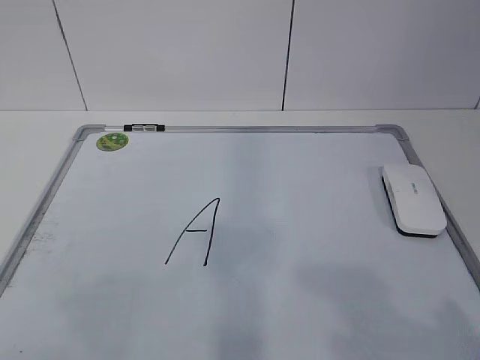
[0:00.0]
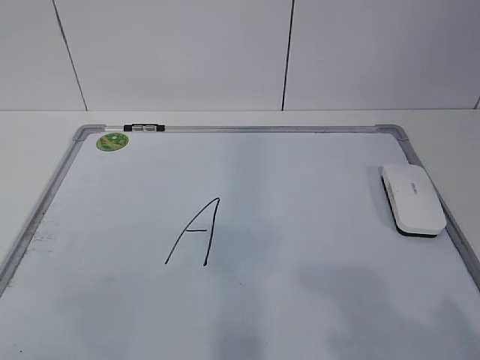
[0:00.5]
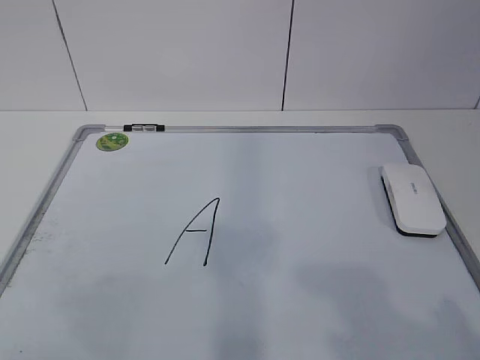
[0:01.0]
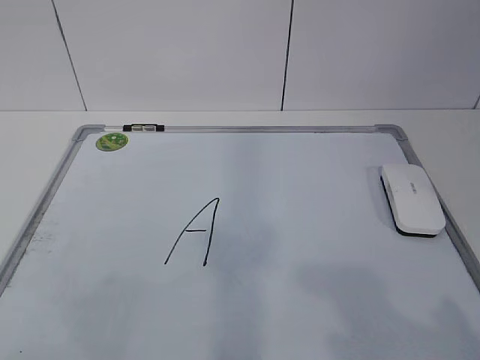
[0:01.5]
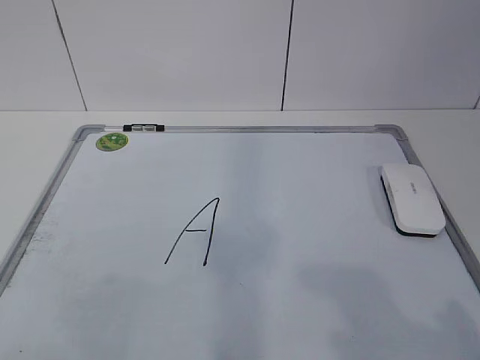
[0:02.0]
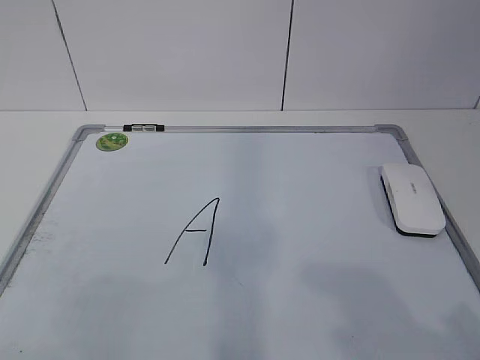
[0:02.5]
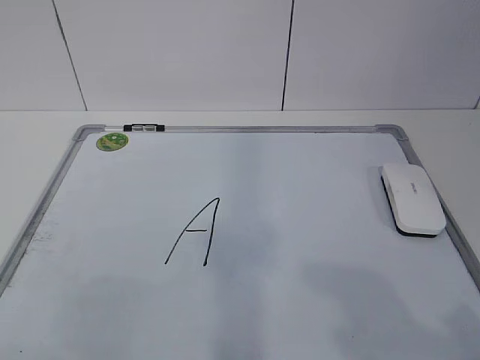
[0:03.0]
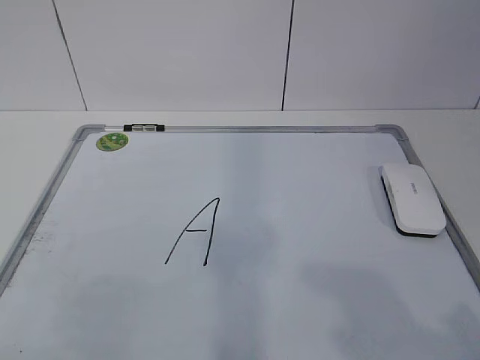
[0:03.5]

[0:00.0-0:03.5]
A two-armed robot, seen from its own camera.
Task of the whole recording: pick up the eraser on the blackboard and erase the letter "a".
0:02.0 to 0:03.5: The two grippers keep their place.

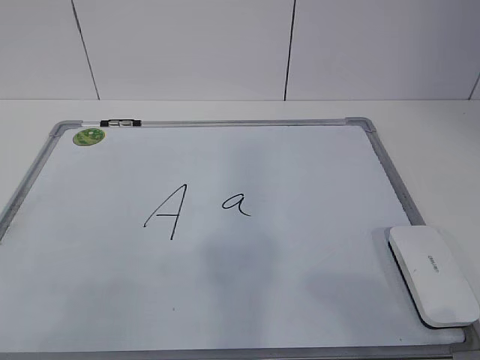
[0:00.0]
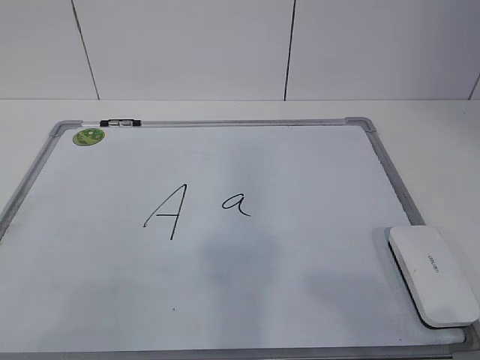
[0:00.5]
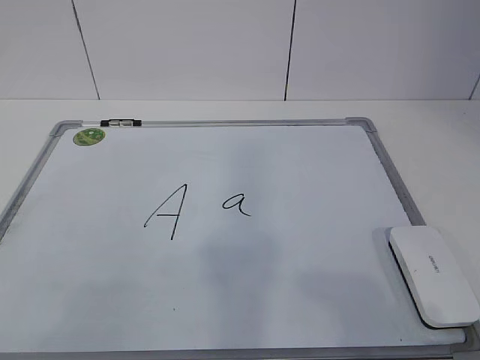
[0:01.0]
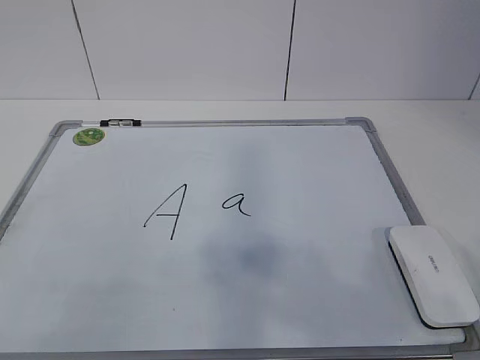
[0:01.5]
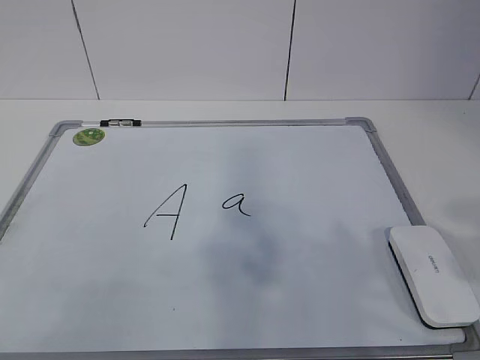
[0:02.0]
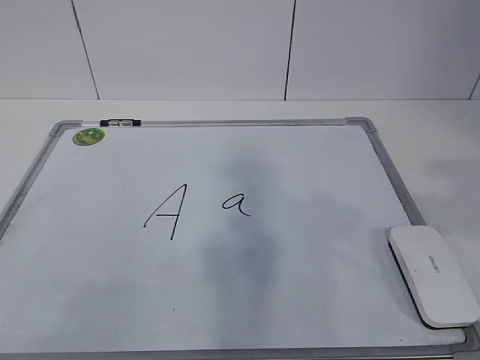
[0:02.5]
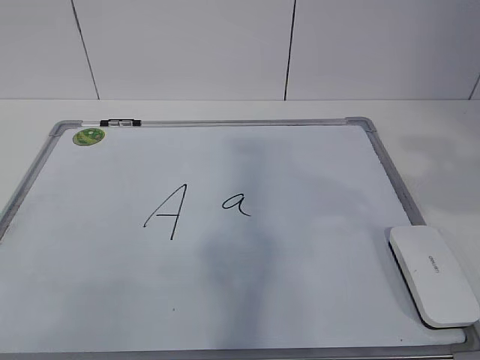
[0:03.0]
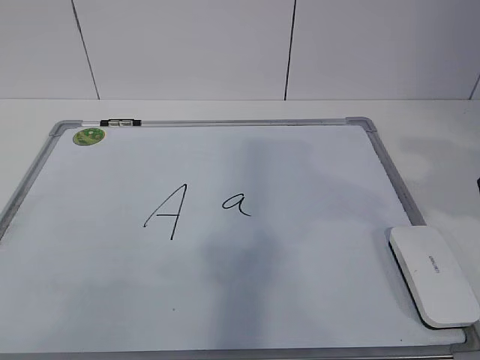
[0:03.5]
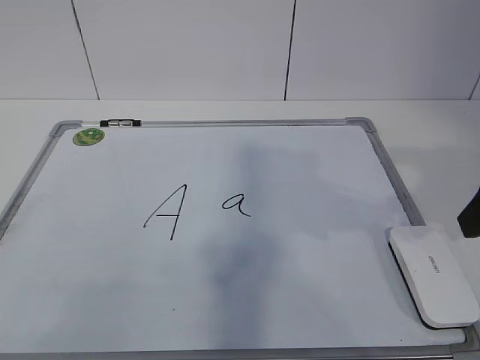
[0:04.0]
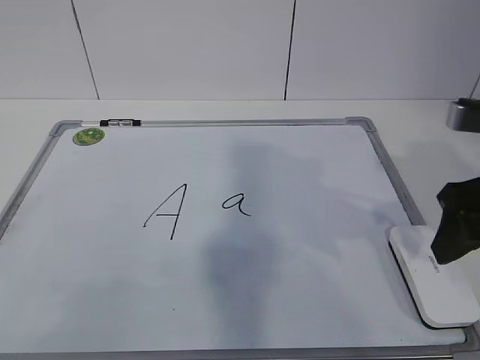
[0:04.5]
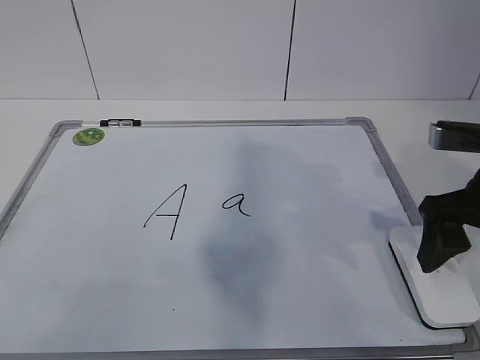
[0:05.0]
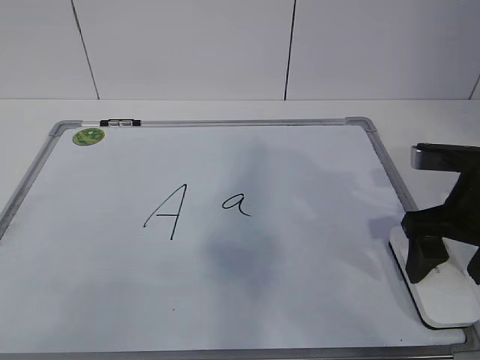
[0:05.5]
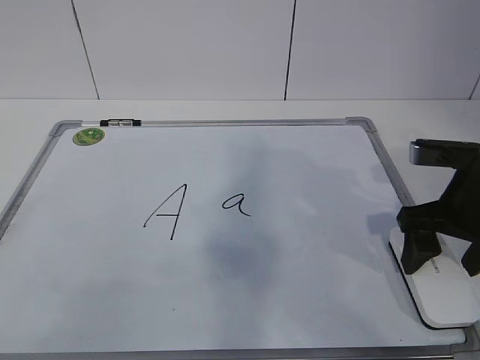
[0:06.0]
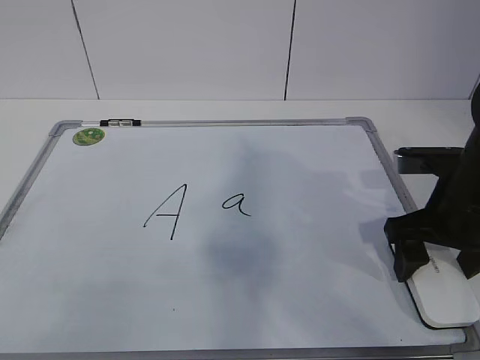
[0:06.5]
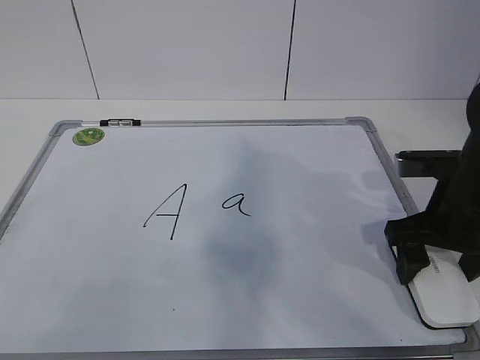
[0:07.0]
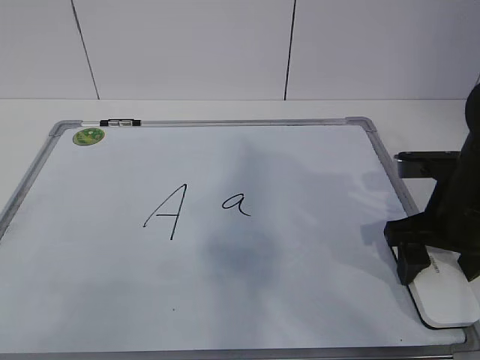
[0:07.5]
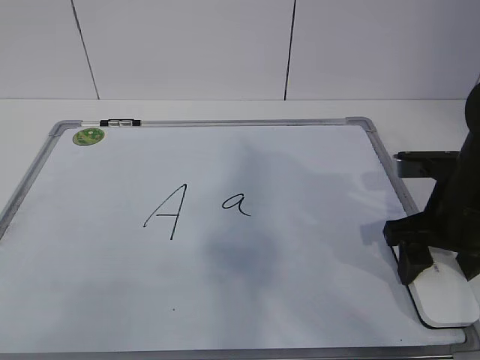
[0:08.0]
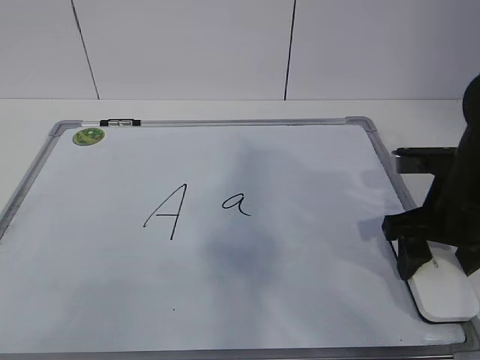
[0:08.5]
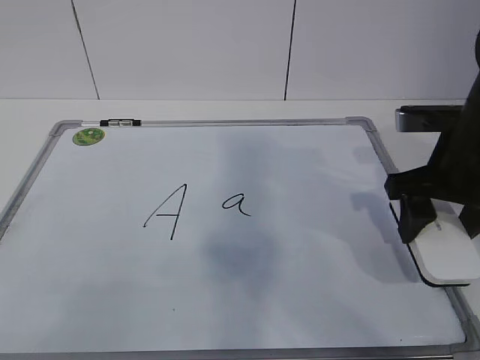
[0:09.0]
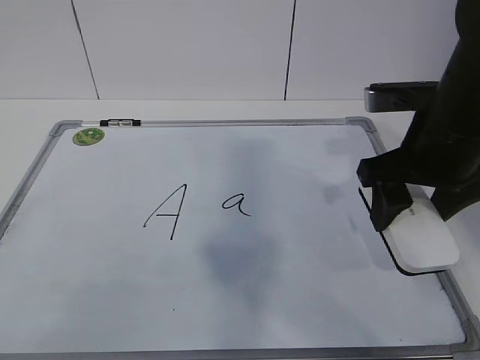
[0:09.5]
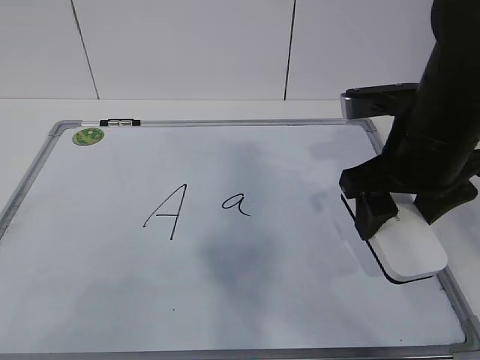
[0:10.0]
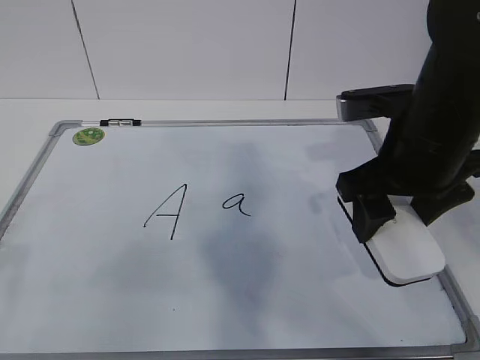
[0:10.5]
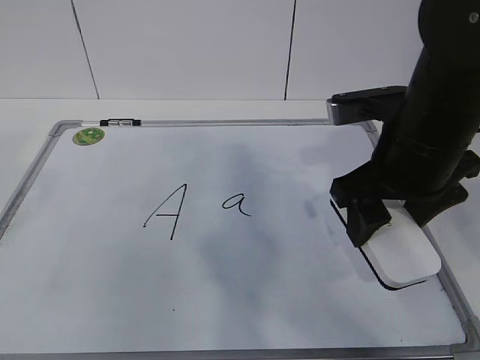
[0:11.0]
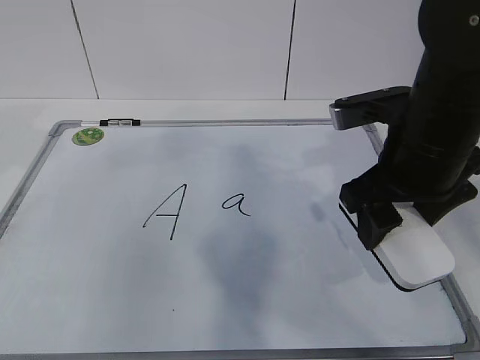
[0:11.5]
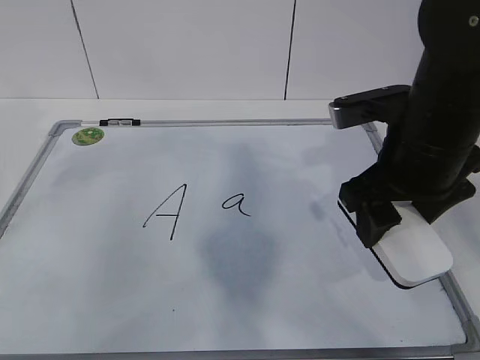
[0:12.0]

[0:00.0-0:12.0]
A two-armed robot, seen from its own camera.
Task of the whole recording: pick up the eraser on the blackboard and erase the letter "a".
Step, 0:00.0 to 0:07.0: Grab the eraser with your right hand.
Step, 0:07.5 to 0:11.5: Hold the drawing board steady with your left hand.
0:04.0 to 0:06.0: The right gripper travels downward and forward by about 10 cm, and opens.
0:06.0 to 0:08.0: The right gripper closes up.
0:08.0 to 0:10.0: The right gripper travels upward and to the left by about 10 cm.

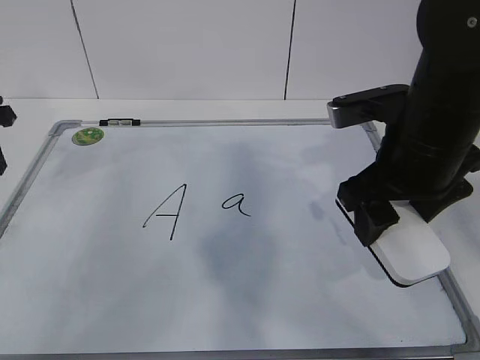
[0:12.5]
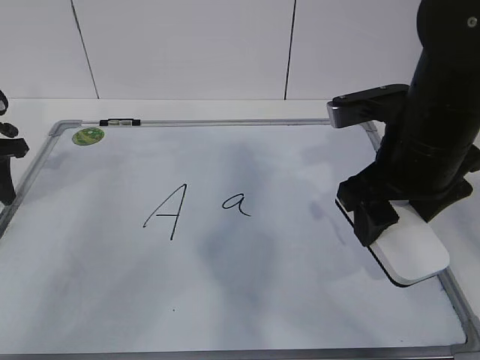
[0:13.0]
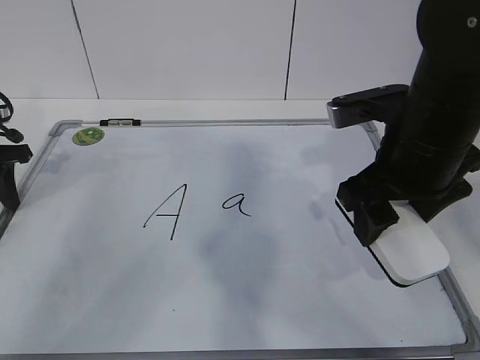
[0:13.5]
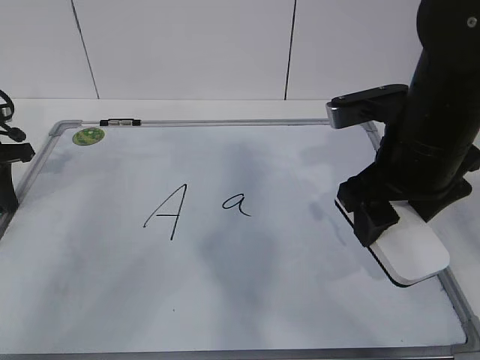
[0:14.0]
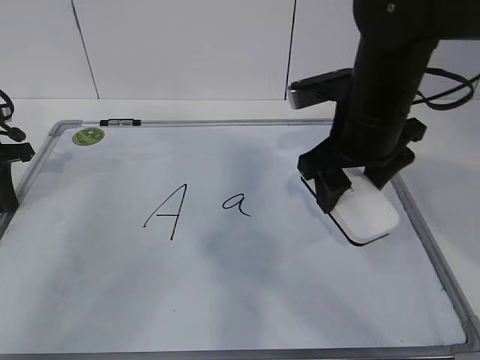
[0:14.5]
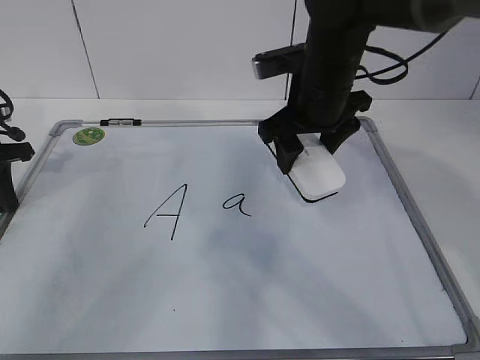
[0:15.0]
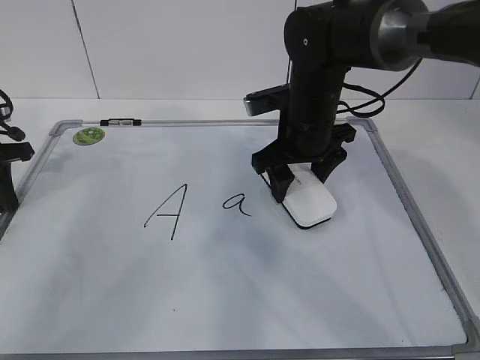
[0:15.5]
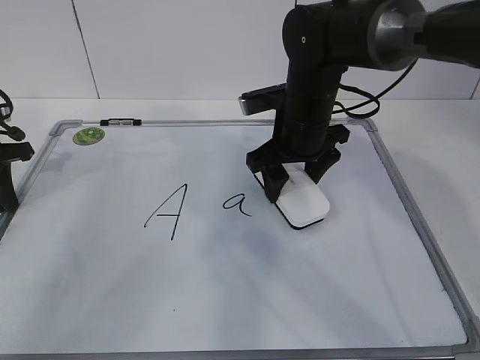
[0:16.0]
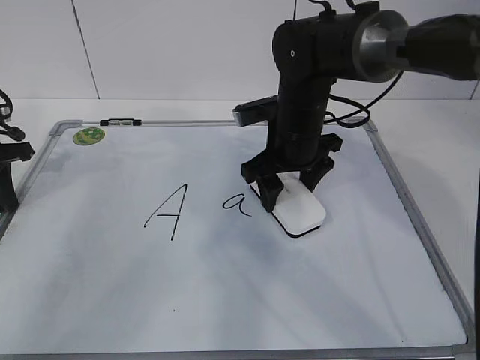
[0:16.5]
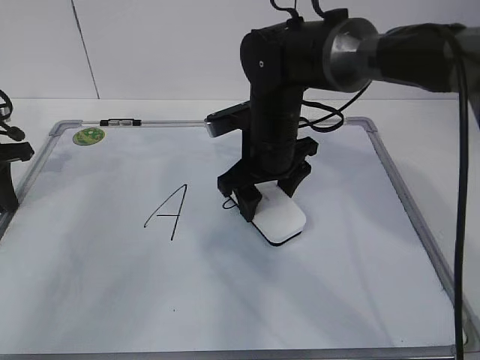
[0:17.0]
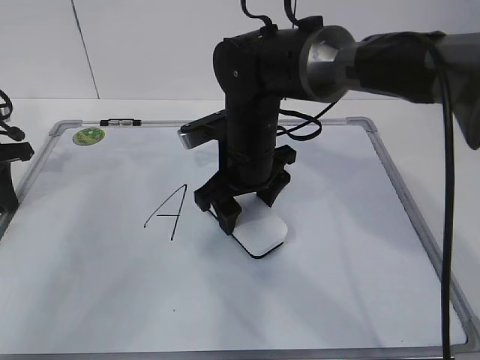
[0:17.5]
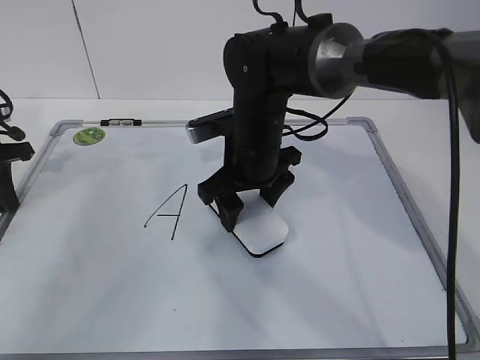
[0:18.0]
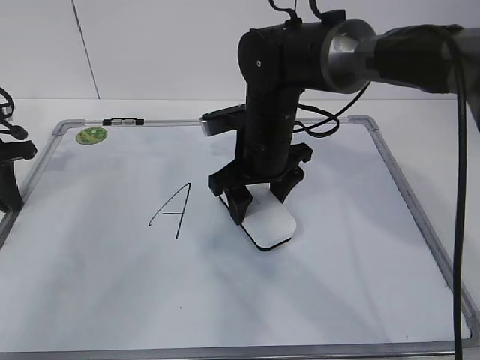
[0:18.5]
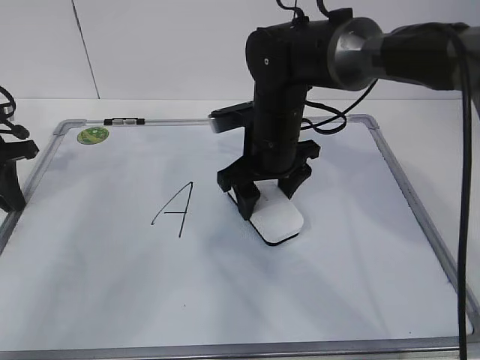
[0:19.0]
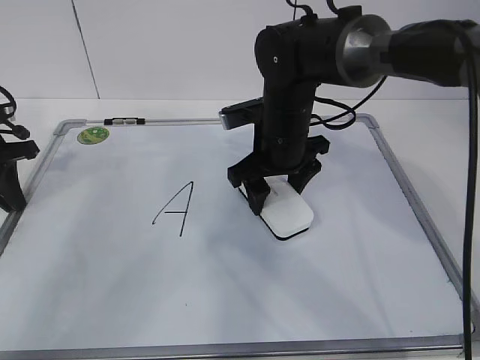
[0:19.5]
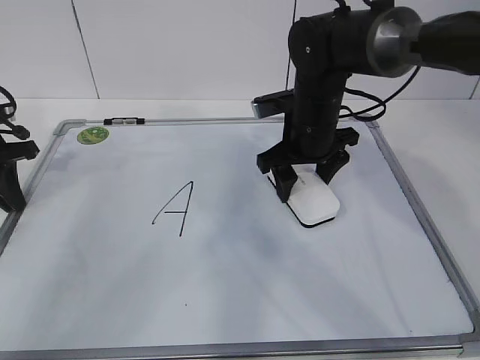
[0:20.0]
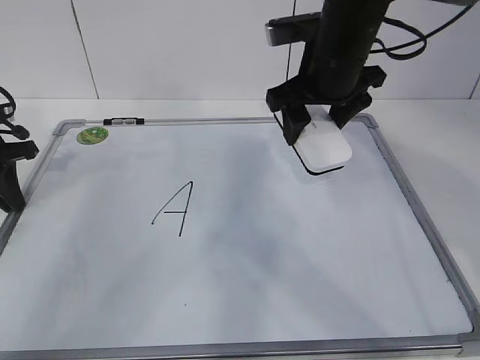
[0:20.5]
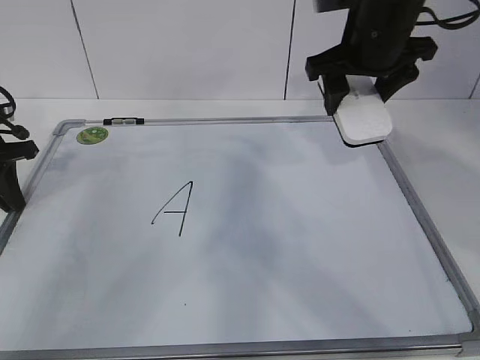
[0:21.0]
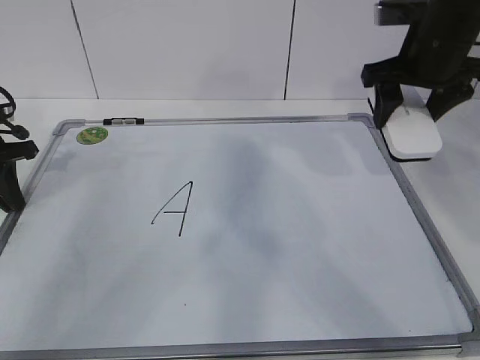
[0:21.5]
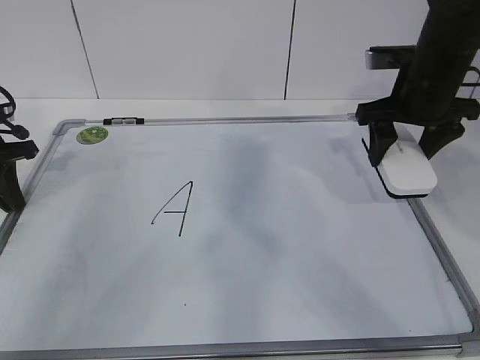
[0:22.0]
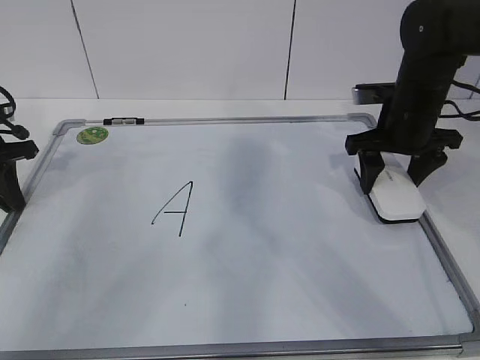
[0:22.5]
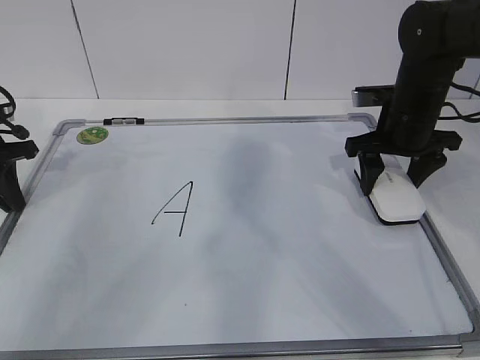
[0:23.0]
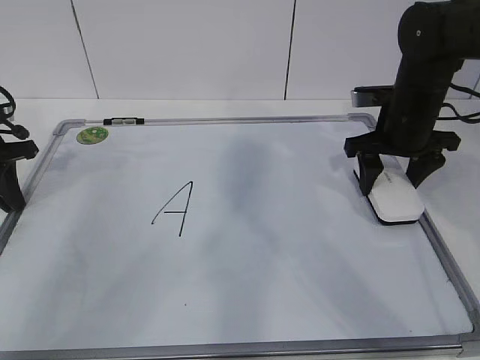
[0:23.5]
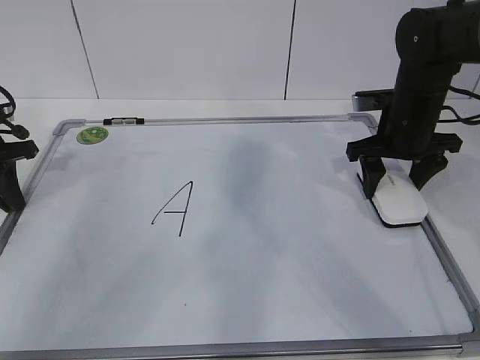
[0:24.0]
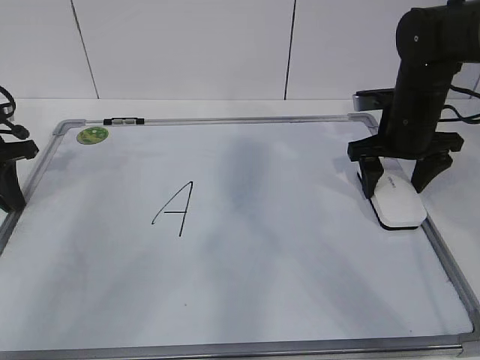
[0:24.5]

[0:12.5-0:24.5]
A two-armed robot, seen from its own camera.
Task of the whole recording: pick up the eraser on the blackboard and erase the letter "a".
Step, 0:12.5 to 0:16.5: Erase the letter a with your right hand.
Step, 0:17.0 to 0:20.0: Put down the eraser with your right hand.
0:12.5 to 0:14.5: The left gripper is displaced downward by about 5 cm, and closes up; the right gripper moves forward, approximately 5 cm.
0:14.5 to 0:16.5: The right gripper heads downward, forward and to the left, covering some 10 cm.
0:18.5 to 0:20.5: The right gripper heads upward and to the right, covering roughly 10 cm.
0:20.5 to 0:22.5: The right gripper moves to the right and downward, approximately 15 cm.
0:22.5 to 0:24.5: The right gripper opens up.
